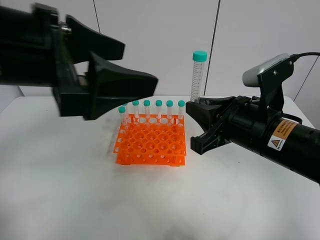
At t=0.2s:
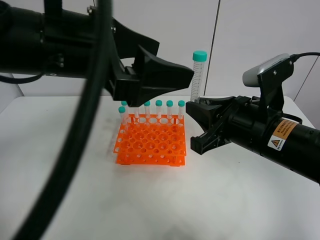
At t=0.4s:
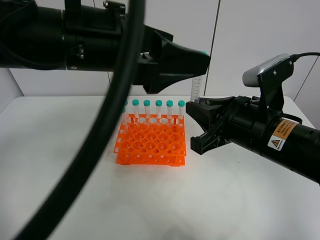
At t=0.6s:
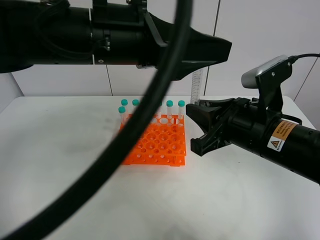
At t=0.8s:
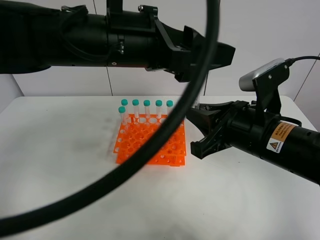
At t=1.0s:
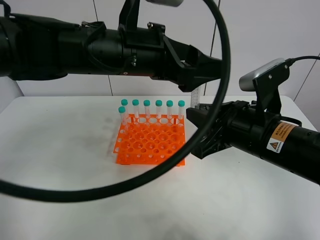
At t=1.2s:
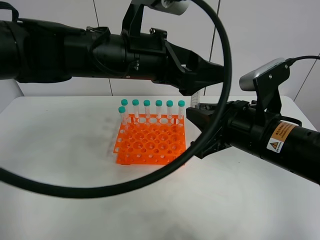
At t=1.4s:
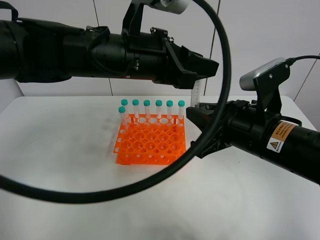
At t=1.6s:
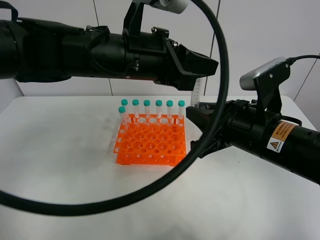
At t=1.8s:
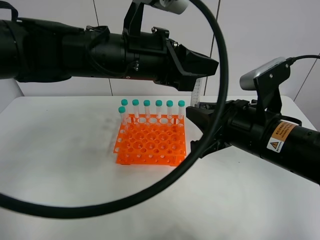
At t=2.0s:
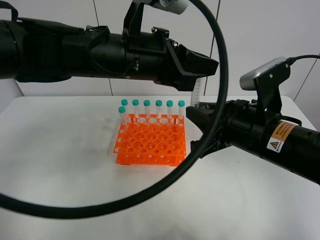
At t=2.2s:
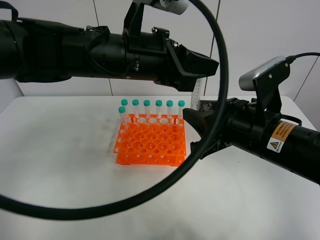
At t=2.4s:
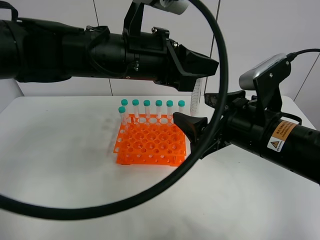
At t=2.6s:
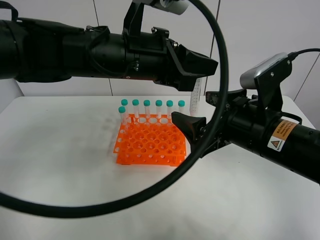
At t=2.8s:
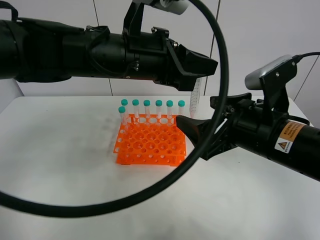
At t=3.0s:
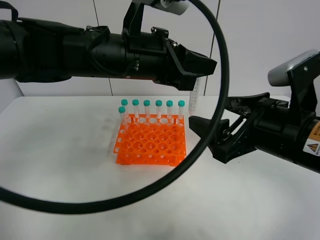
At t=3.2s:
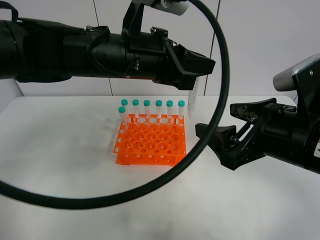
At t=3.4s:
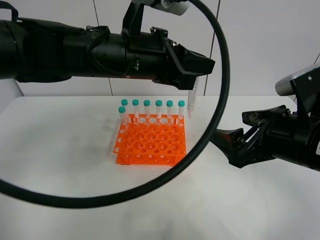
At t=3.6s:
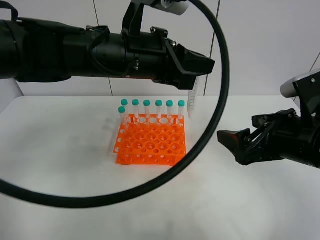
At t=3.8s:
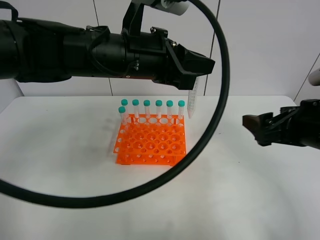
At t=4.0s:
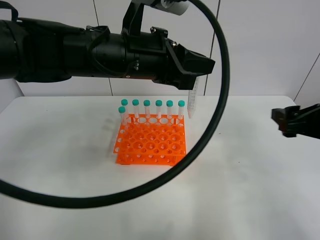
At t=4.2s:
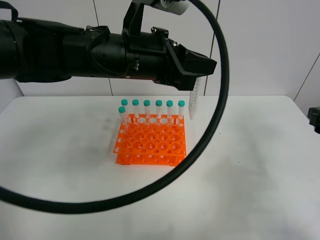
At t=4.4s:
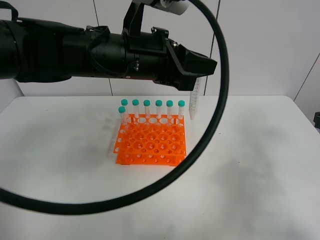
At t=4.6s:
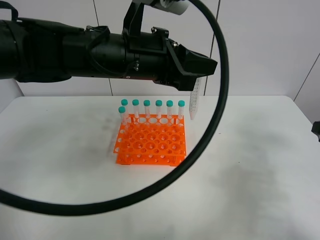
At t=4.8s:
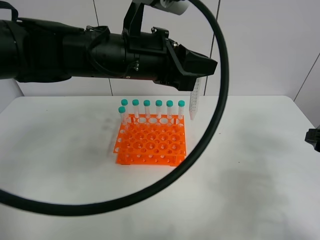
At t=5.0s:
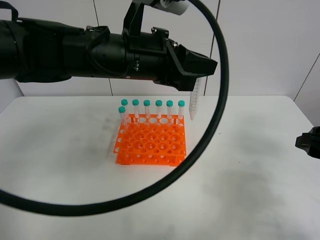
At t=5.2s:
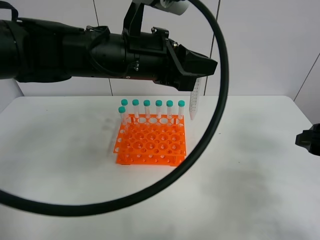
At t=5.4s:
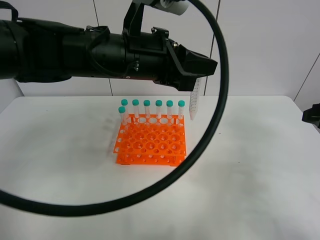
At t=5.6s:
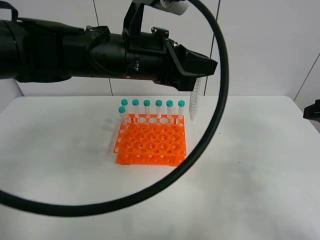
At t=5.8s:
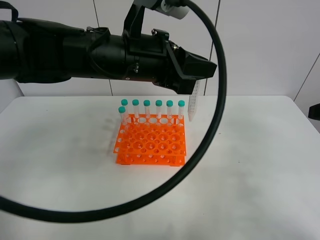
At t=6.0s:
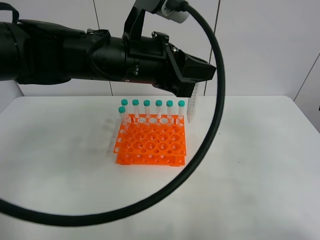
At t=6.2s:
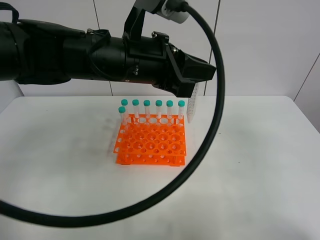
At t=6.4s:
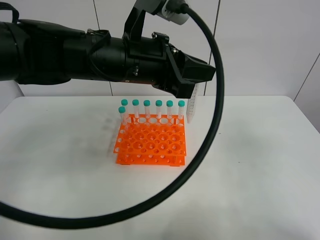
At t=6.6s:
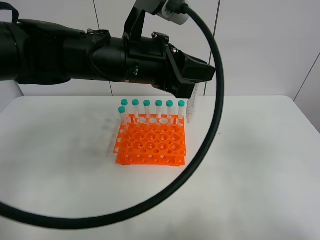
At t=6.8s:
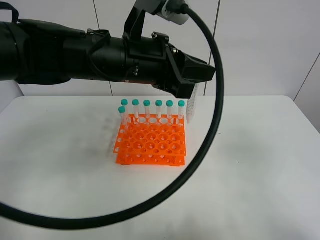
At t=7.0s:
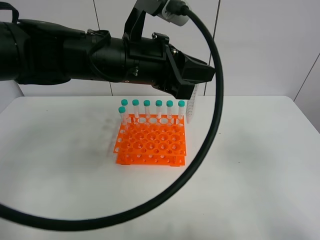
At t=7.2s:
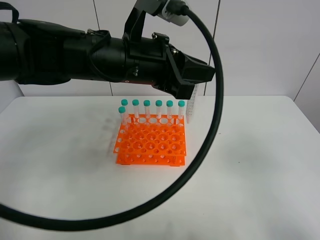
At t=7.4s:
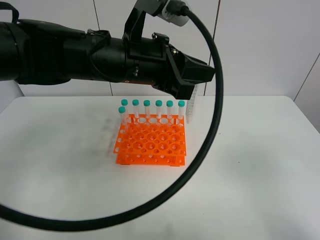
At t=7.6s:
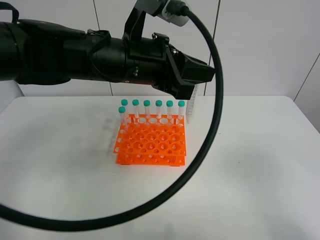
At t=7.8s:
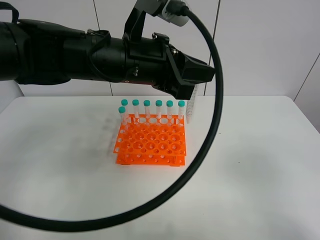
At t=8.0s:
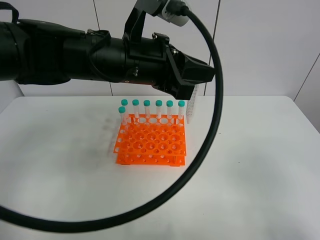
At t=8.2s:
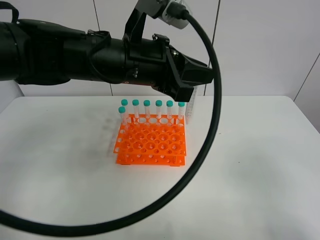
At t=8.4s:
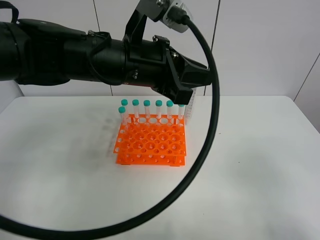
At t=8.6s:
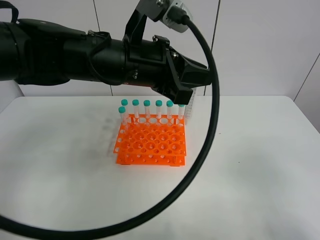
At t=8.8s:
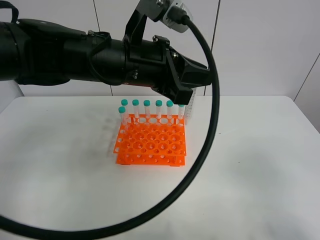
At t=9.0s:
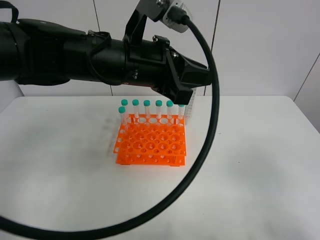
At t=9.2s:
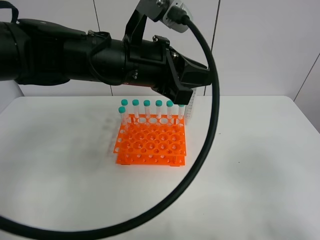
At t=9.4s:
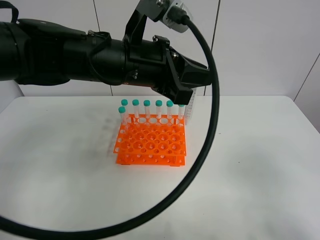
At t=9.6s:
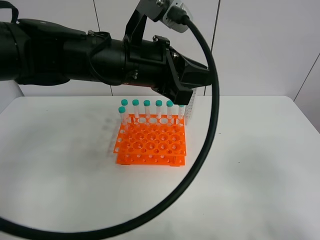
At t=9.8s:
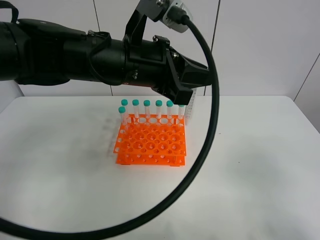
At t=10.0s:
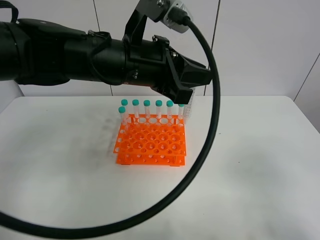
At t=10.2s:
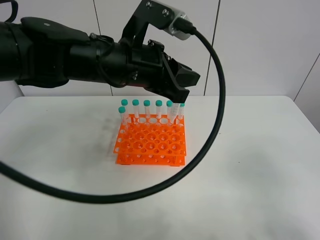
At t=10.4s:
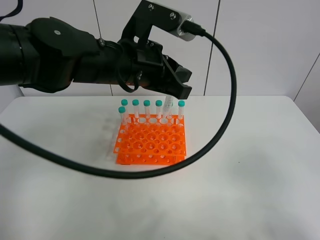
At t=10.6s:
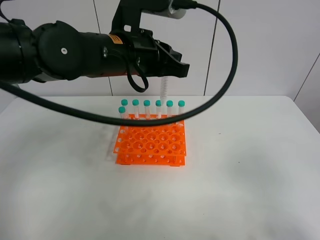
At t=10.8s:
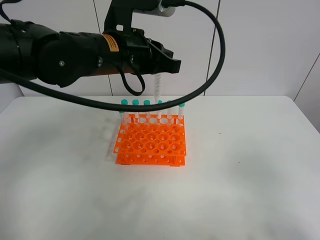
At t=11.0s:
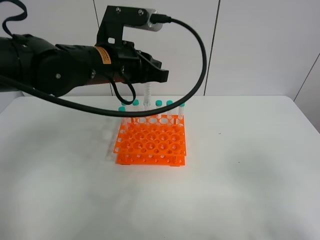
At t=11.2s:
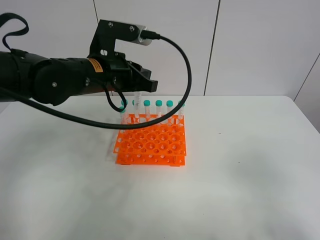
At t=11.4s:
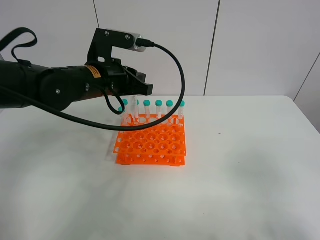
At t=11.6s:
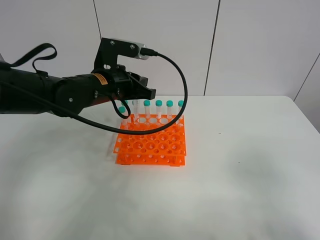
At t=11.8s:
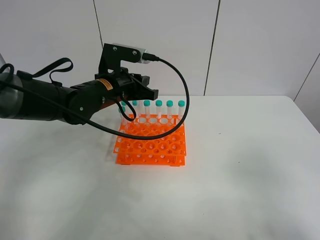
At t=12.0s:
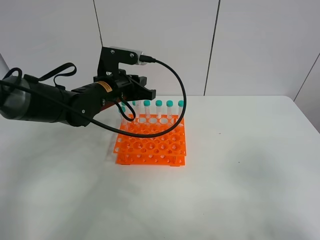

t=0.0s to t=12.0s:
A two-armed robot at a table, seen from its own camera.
Task of the whole recording: Put the test tube on the table back onto the test tube rack.
Step, t=0.0s to t=3.2s: Move the test tube from the right gripper to the left gripper.
t=0.0s to t=1.6s: The left gripper is displaced forward, to the right and downward by roughly 15 cm, and closes its fingers.
t=1.6s to t=3.0s: The right gripper opens up.
t=3.0s to t=4.4s: The right gripper is displaced to the right by approximately 15 cm.
t=4.4s to t=6.0s: The right gripper travels upward by approximately 10 cm.
t=6.0s to t=7.6s: The right gripper heads backward, covering roughly 15 cm.
t=7.6s to t=9.0s: The right gripper shifts by approximately 5 cm.
t=10.4s to t=12.0s: The left gripper travels downward, forward and to the left by approximately 15 cm.

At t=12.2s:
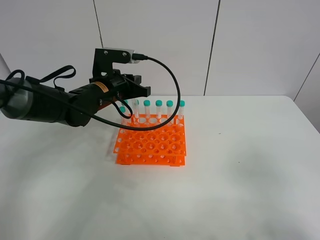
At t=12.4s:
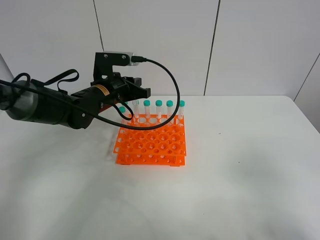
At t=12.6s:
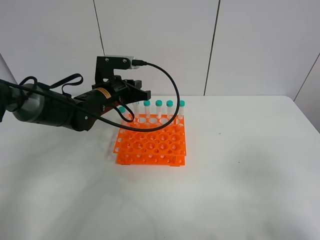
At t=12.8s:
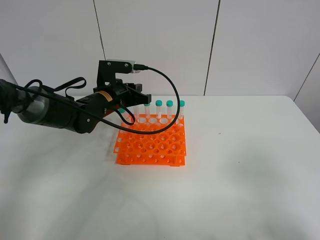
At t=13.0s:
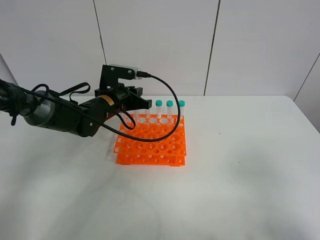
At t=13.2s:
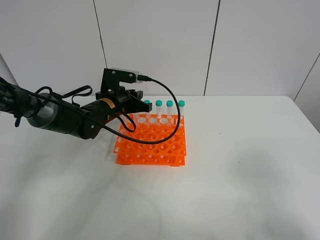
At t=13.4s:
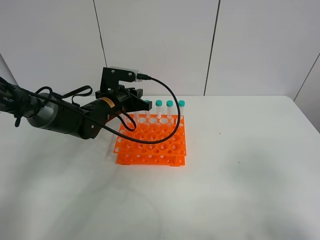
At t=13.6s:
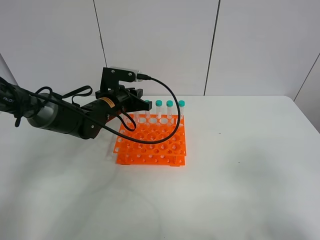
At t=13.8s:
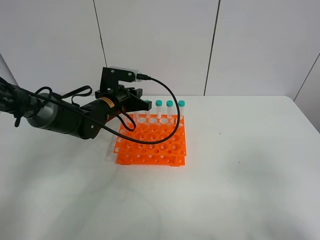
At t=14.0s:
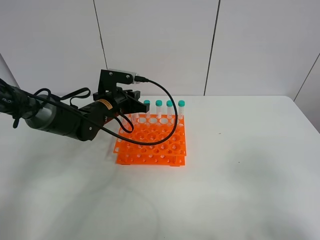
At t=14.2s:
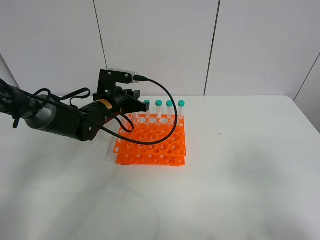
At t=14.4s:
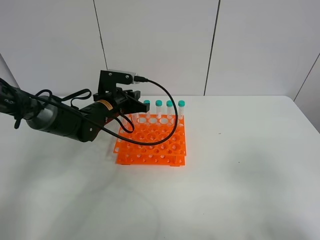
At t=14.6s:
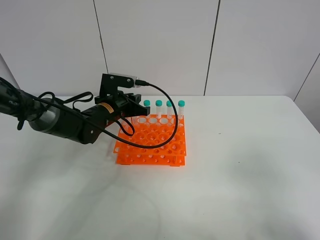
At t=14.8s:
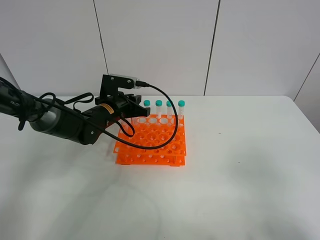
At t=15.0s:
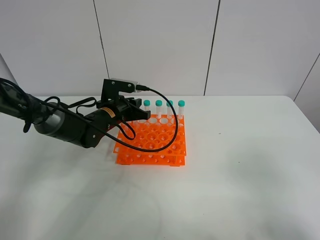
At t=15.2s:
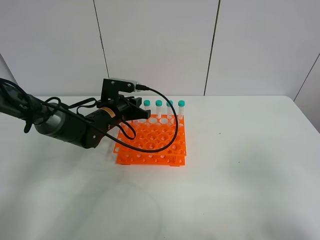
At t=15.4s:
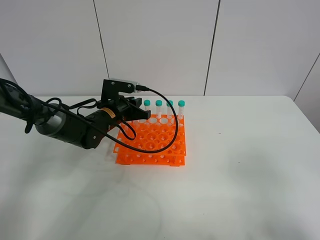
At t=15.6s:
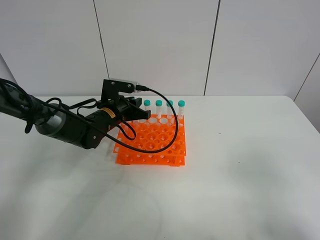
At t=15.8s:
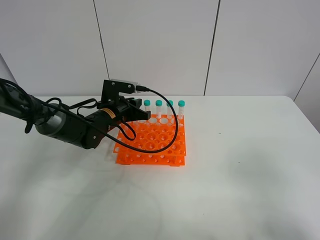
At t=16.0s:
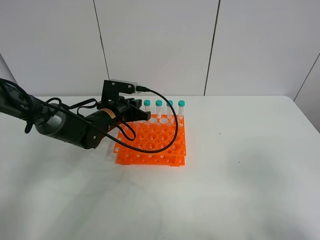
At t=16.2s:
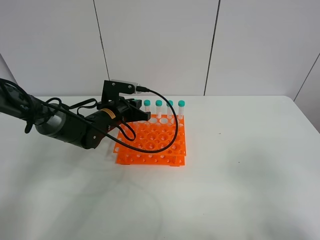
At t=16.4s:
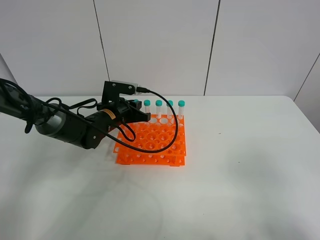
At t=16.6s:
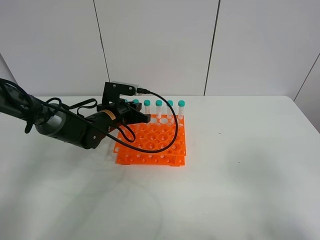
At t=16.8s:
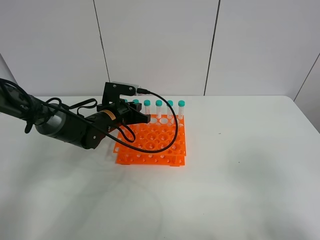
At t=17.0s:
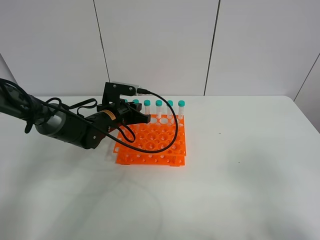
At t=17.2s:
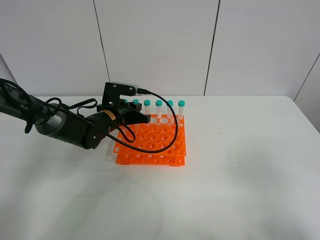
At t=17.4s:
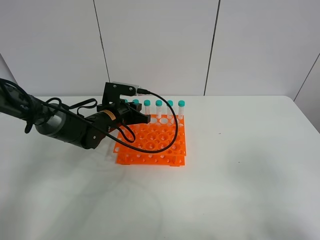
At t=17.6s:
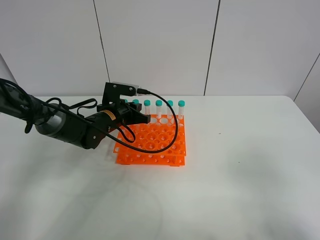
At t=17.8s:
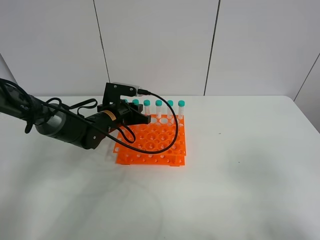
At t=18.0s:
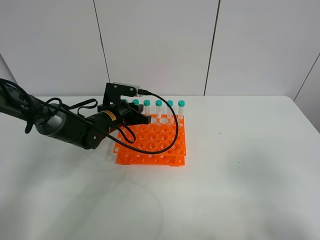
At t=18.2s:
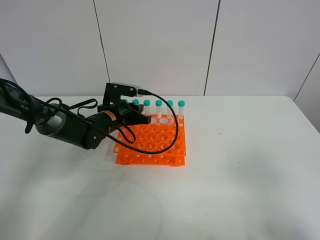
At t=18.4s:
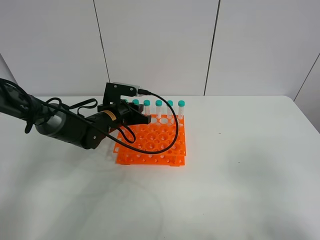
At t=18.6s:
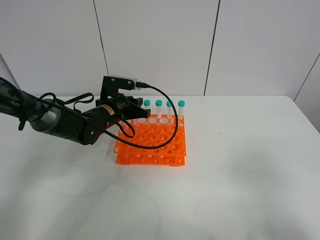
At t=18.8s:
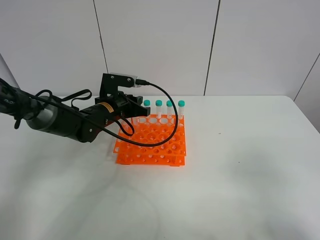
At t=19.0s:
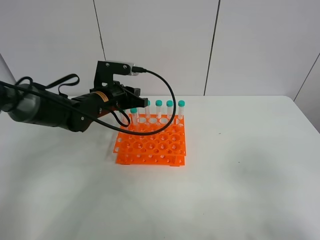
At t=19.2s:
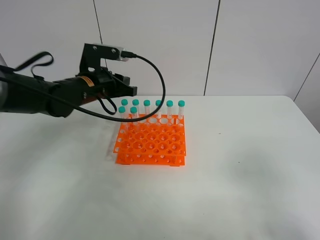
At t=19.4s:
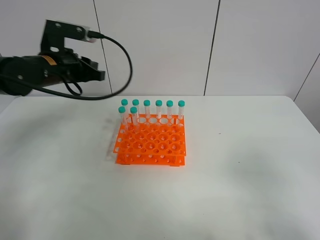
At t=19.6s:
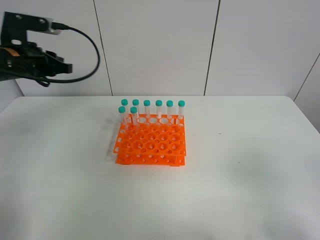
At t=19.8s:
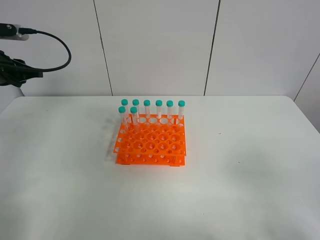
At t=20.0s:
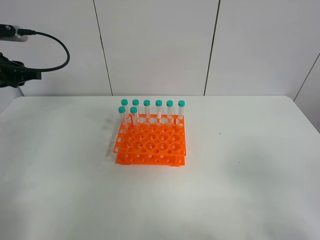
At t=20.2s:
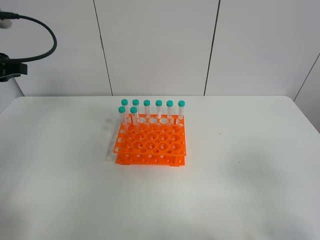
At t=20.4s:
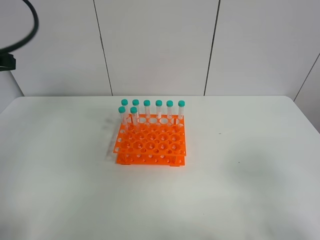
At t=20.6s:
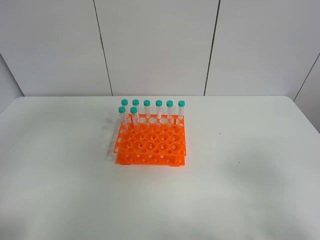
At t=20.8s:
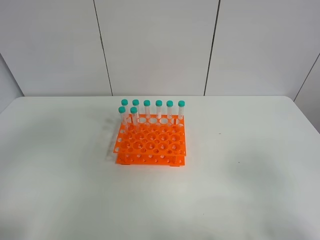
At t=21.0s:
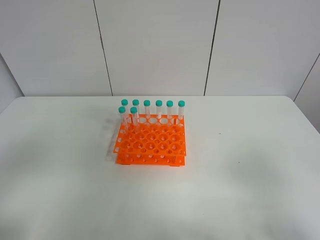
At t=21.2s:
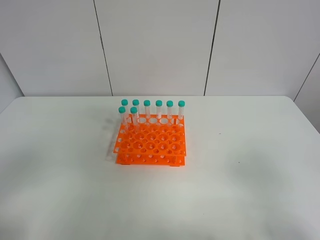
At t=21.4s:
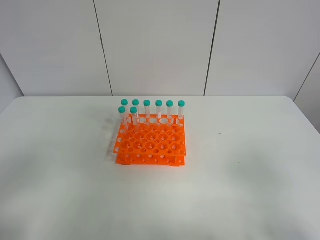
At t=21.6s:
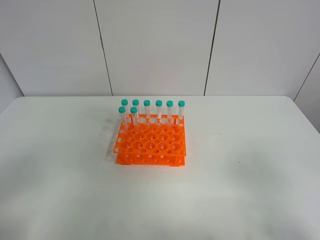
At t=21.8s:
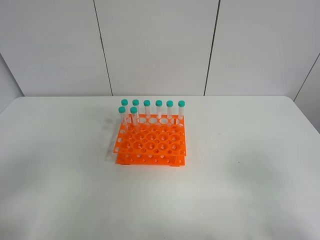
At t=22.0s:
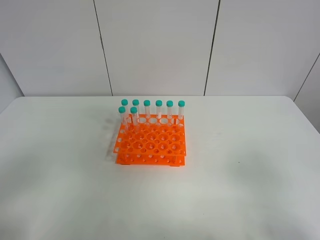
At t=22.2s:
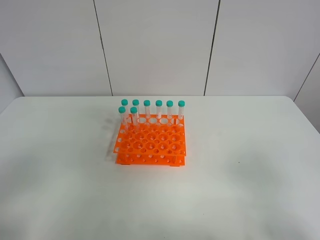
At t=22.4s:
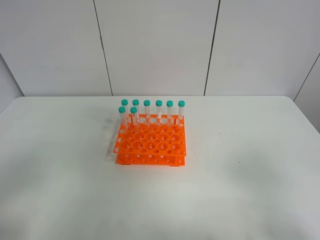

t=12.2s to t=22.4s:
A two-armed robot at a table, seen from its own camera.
Task of the whole recording: Put the test tube on the table back onto the test tube rack.
Step, t=12.2s to t=19.2s: Place the test tube on the test tube rack with the left gripper.
t=12.2s to t=13.6s: The grippers stay close to where they were, moving slightly.
t=13.6s to t=15.2s: There are only small adjustments of the grippers.
t=15.2s to t=18.0s: Both grippers stay about where they are.
t=18.0s to t=19.4s: The left gripper goes some 20 cm upward and to the left.
t=19.4s to t=21.0s: The left gripper is displaced backward by approximately 35 cm.
